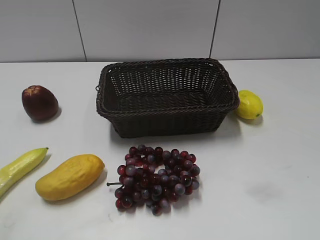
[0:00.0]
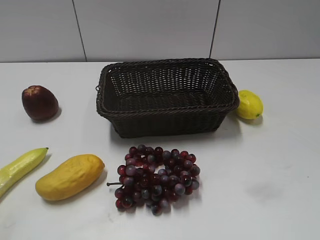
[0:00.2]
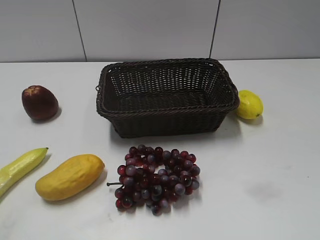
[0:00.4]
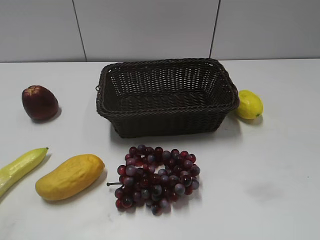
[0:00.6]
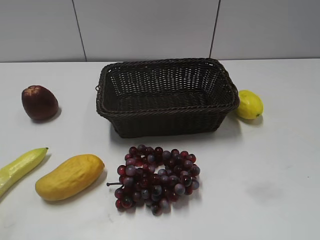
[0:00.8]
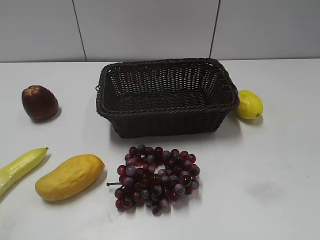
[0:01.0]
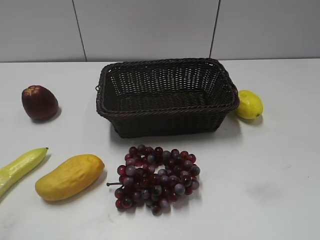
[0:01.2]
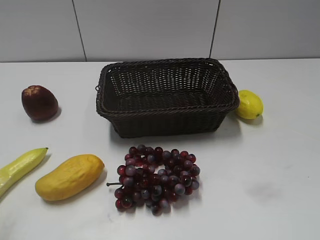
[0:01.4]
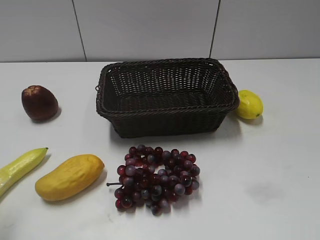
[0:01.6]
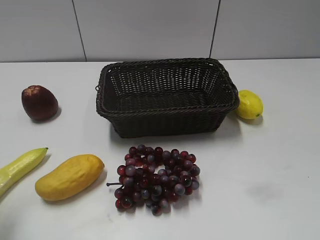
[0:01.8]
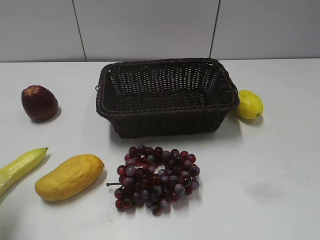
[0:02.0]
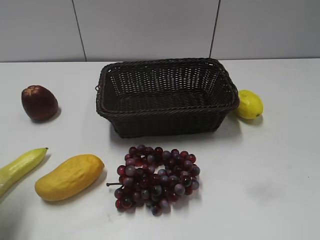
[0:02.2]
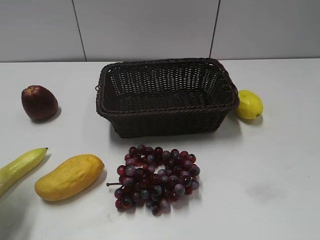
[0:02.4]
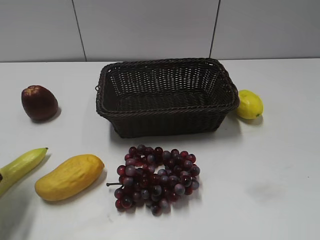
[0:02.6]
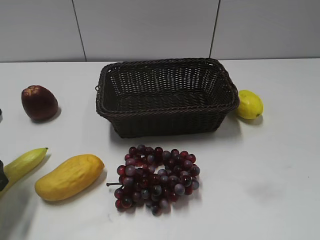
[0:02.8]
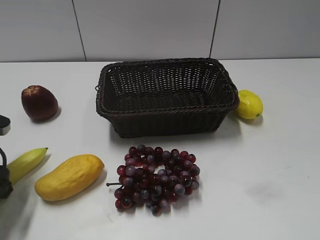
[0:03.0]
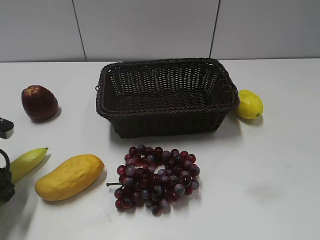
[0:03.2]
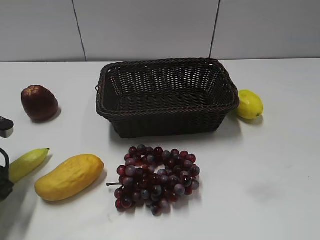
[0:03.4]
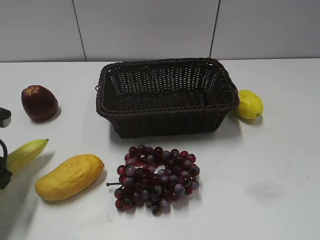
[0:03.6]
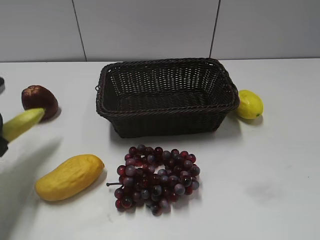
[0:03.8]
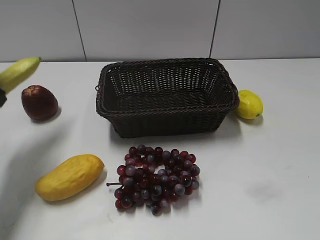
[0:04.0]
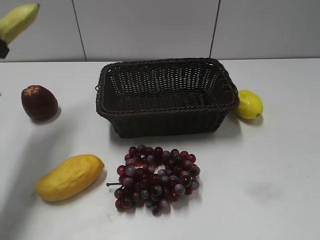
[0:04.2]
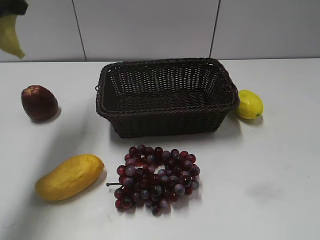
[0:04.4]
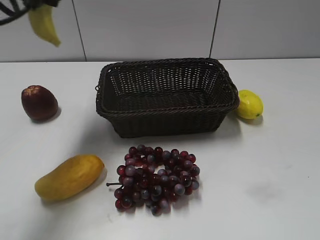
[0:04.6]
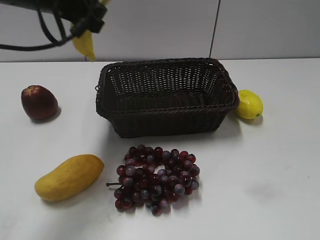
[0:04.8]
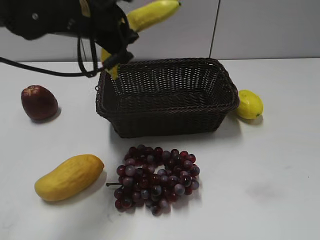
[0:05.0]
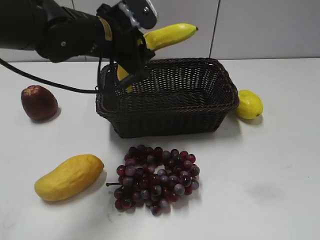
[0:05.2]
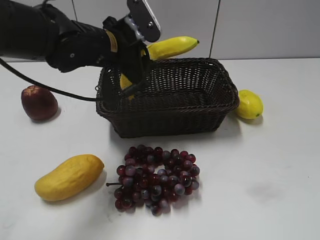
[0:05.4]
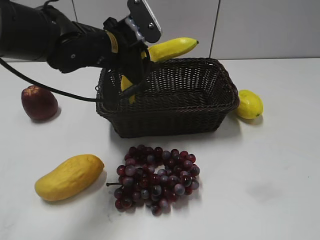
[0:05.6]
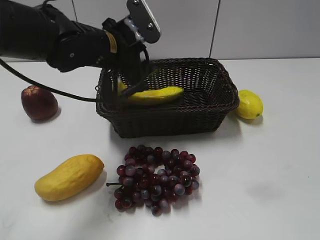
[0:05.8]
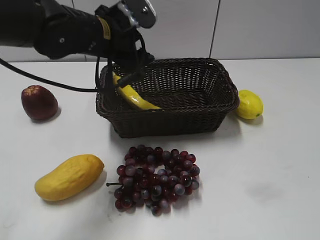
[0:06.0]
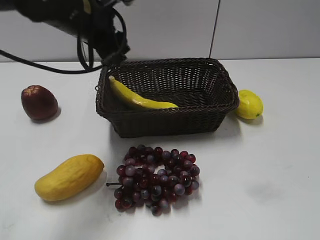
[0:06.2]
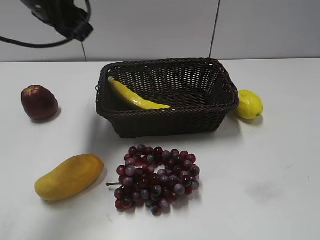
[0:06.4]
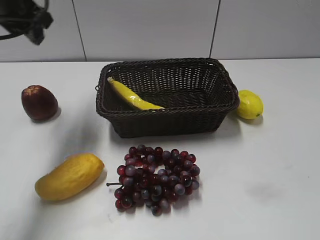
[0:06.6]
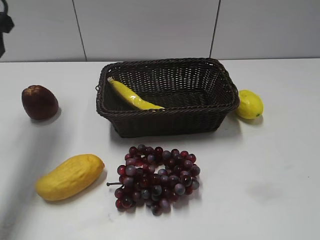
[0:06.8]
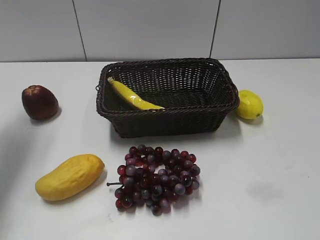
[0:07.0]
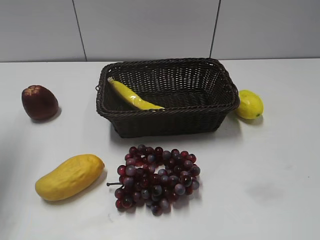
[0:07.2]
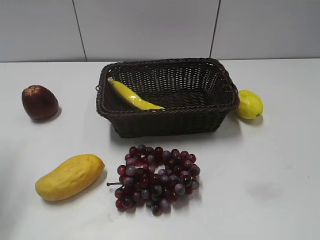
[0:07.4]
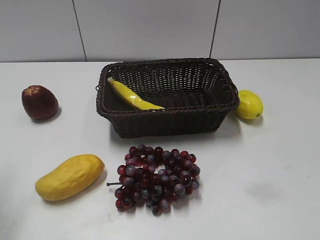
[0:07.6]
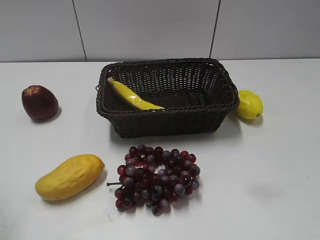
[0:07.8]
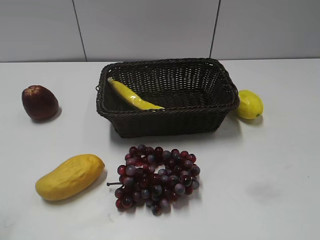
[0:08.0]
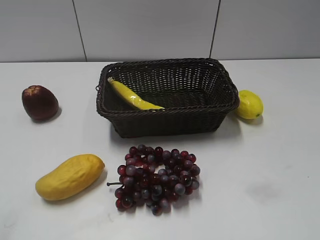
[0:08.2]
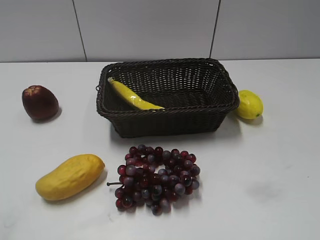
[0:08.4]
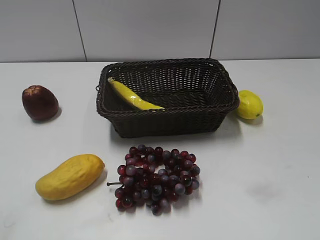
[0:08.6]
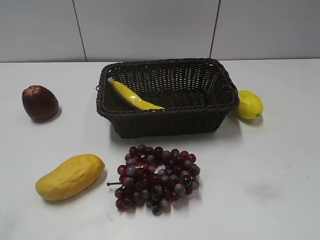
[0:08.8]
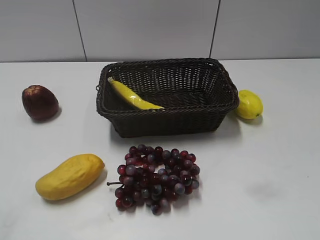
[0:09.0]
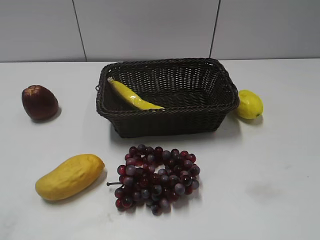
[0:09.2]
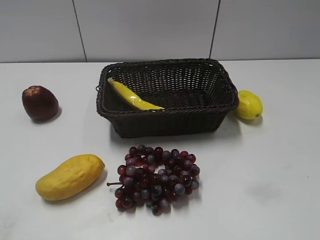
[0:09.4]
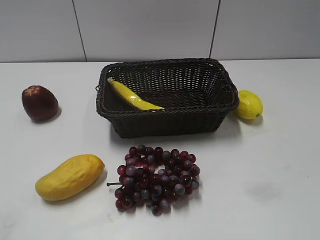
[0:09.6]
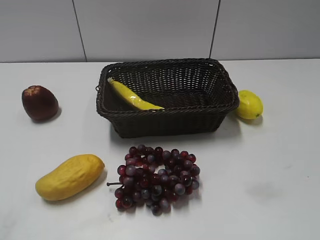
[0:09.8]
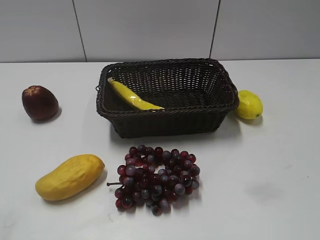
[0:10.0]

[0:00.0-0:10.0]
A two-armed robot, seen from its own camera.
Step, 0:03.6 to 0:06.0: Place the banana in the basket with left gripper.
0:01.4 to 0:02.8: The left gripper shifts roughly 20 cm forward and downward.
0:02.8 to 0:04.2: The left gripper heads upward and forward, covering about 20 cm, and closes.
0:04.2 to 0:05.8: The left gripper travels to the right and downward by some 20 cm, and opens.
0:05.8 to 0:07.2: The left gripper goes roughly 30 cm to the left and upward, and closes.
0:07.2 to 0:08.6: The left gripper heads backward, covering roughly 30 cm.
